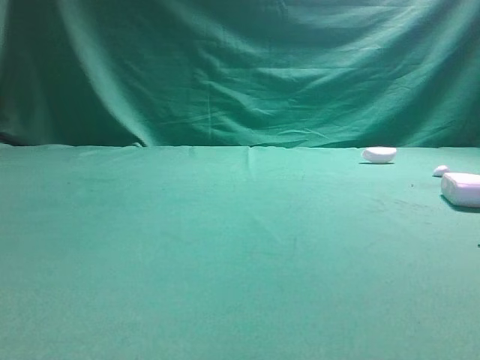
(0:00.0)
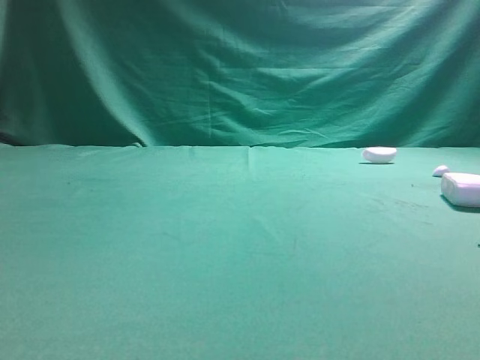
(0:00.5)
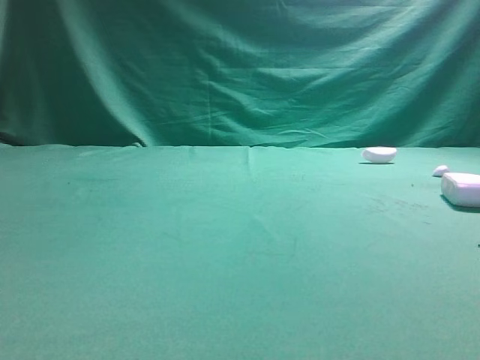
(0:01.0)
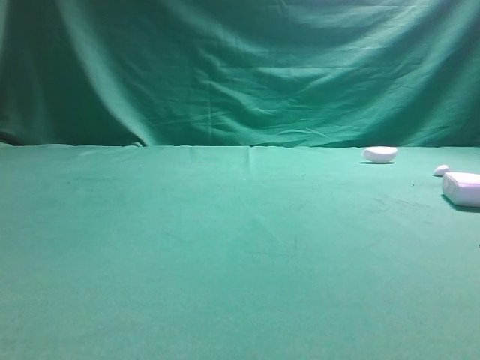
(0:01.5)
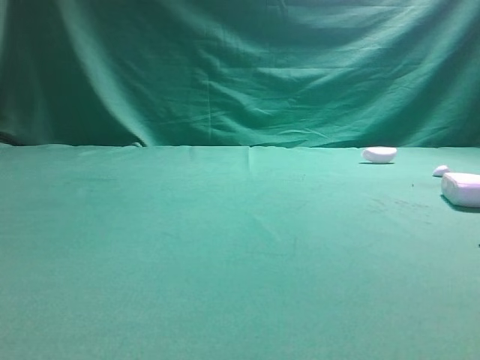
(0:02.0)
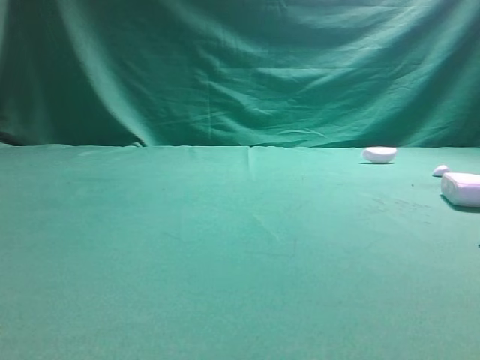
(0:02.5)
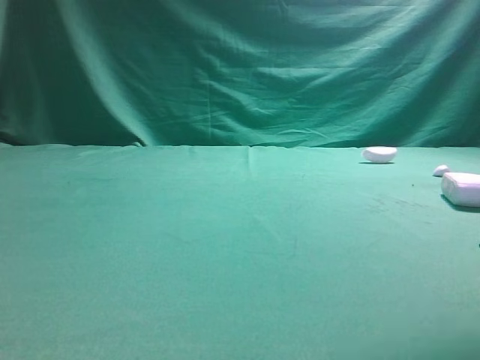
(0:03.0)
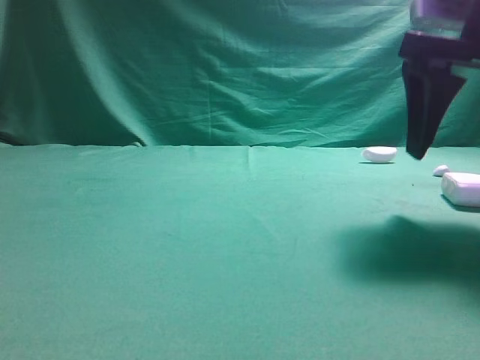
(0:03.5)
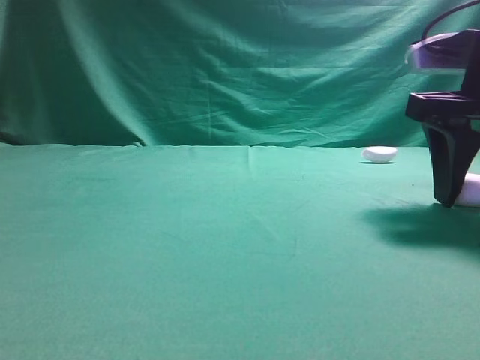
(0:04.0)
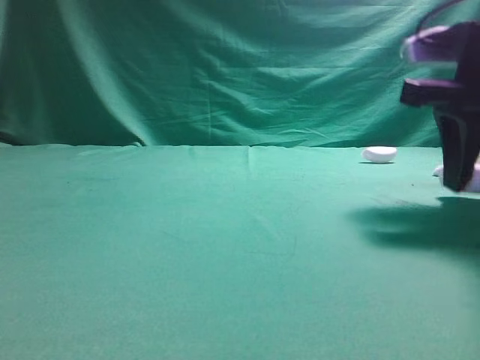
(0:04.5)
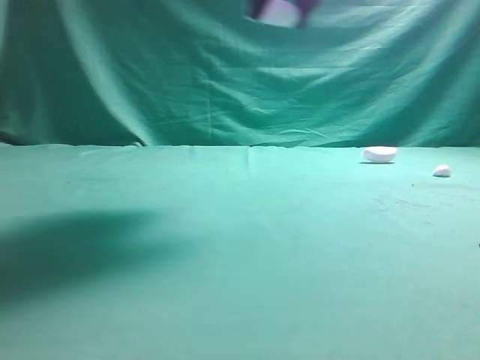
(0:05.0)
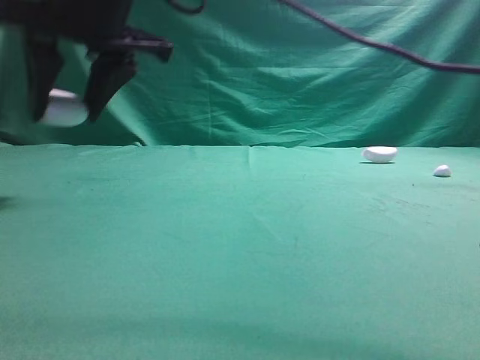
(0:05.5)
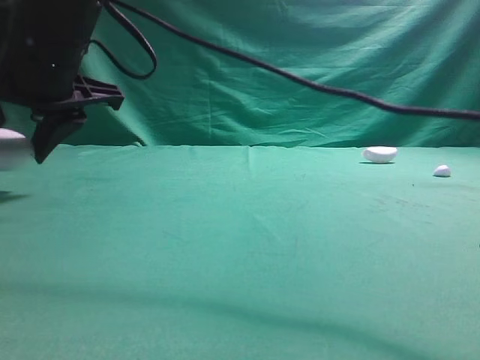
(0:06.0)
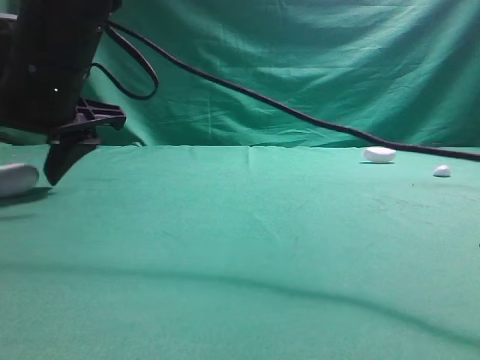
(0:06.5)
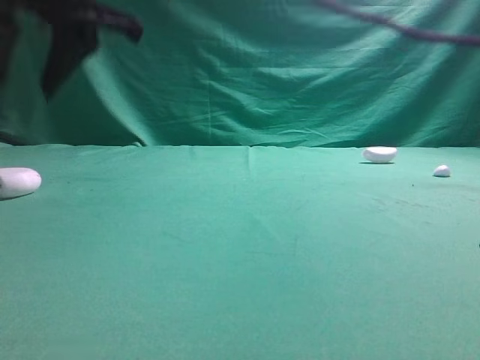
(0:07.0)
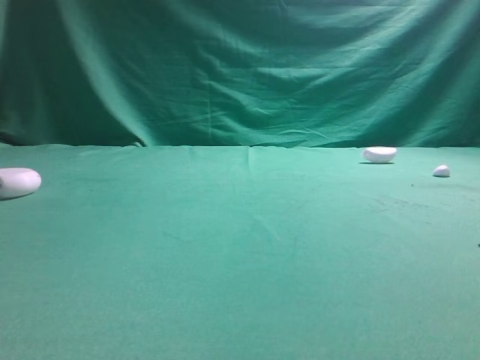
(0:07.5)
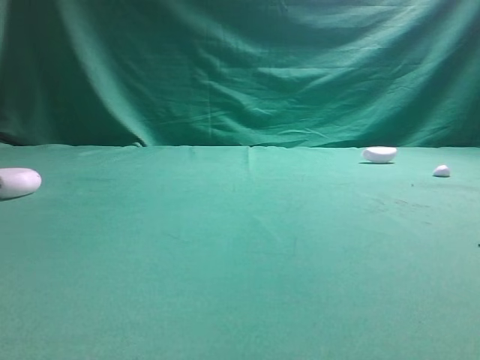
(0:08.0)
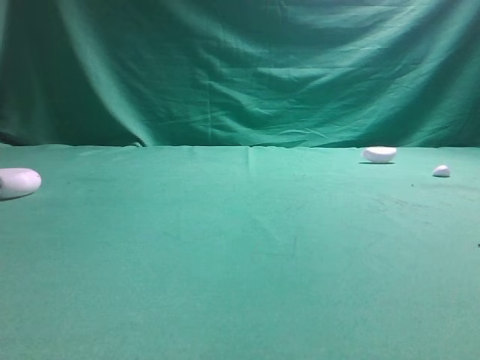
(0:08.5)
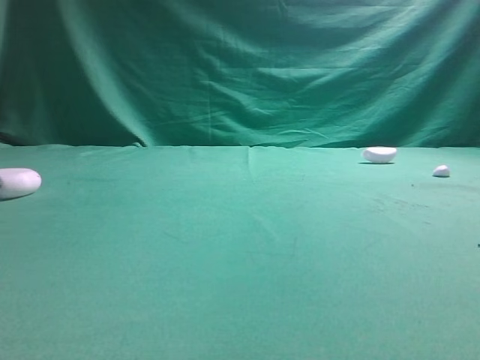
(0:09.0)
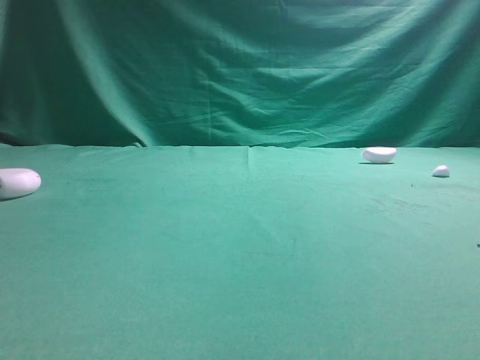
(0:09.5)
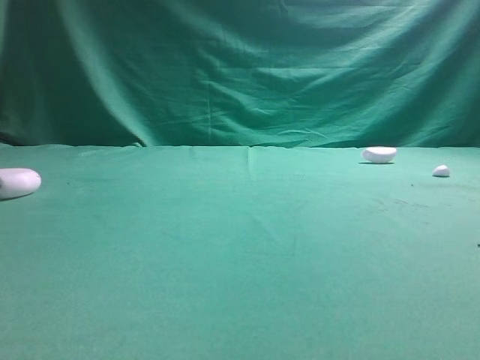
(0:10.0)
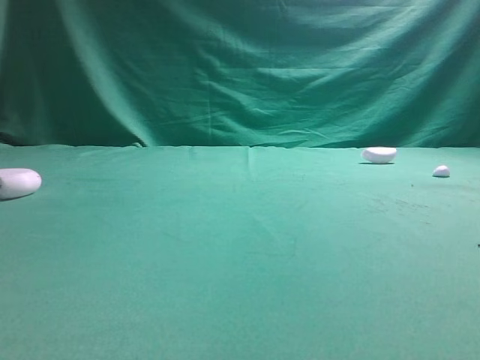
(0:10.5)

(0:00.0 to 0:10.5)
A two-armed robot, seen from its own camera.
Step, 0:00.0 - 0:04.5: Grasp the Bluetooth earphone case.
Step, 0:05.0 - 0:06.5: Place bluetooth earphone case on the left side of the table.

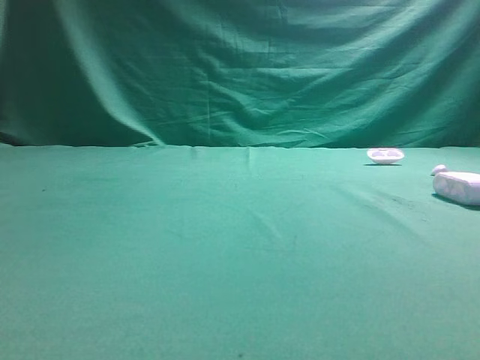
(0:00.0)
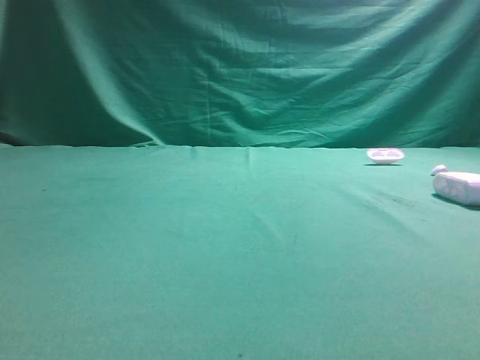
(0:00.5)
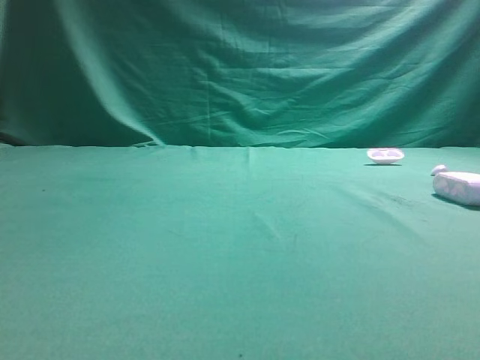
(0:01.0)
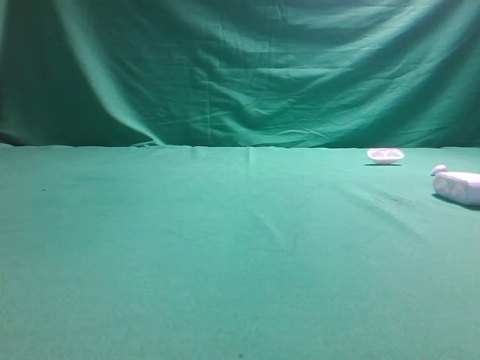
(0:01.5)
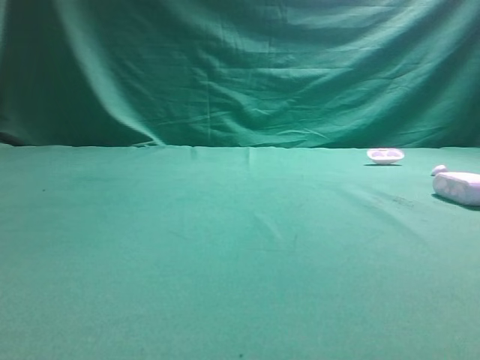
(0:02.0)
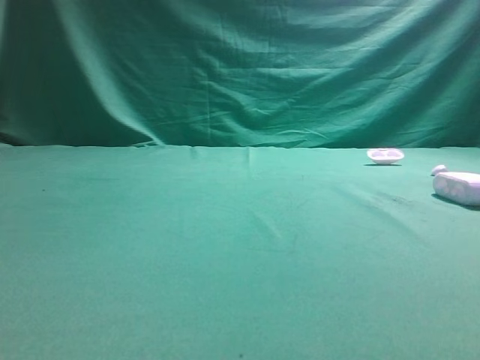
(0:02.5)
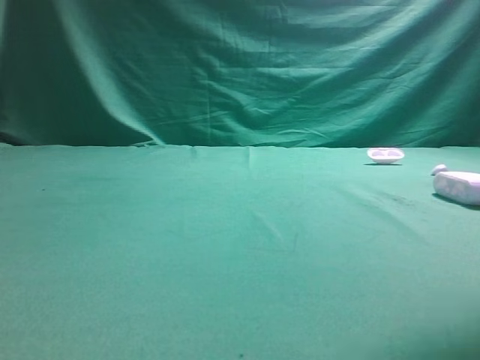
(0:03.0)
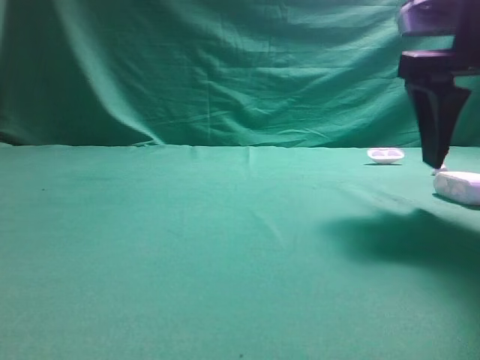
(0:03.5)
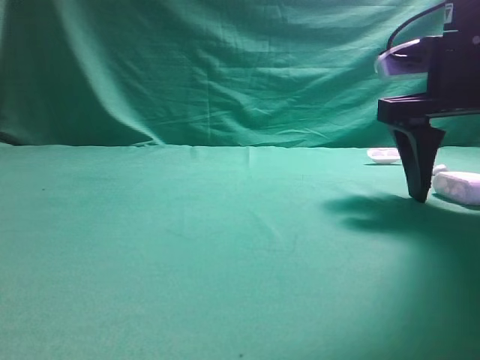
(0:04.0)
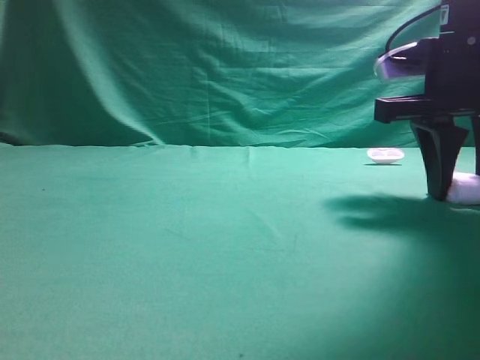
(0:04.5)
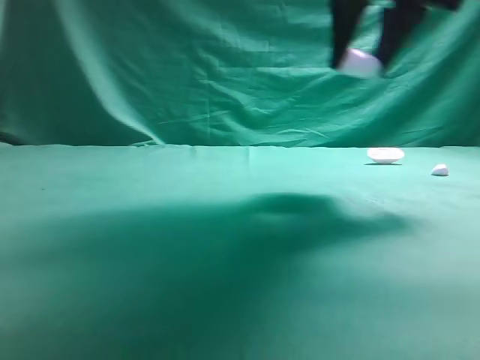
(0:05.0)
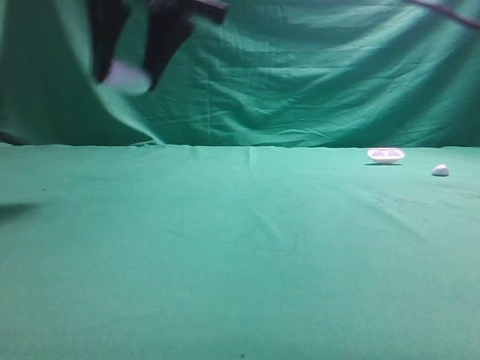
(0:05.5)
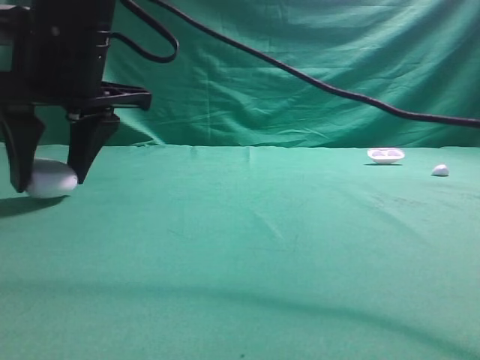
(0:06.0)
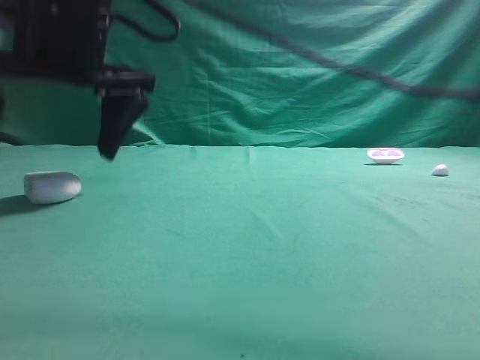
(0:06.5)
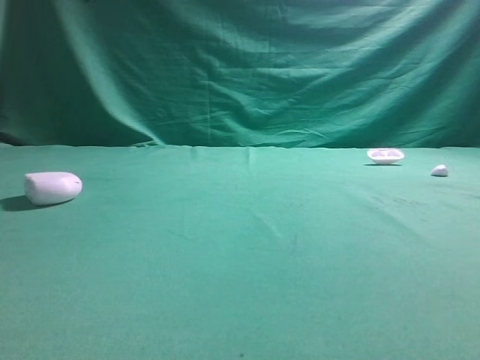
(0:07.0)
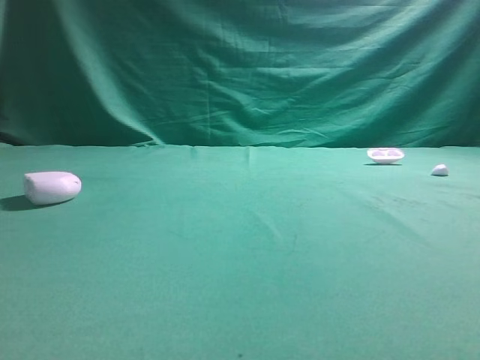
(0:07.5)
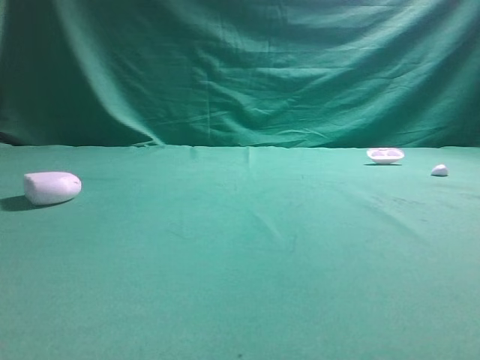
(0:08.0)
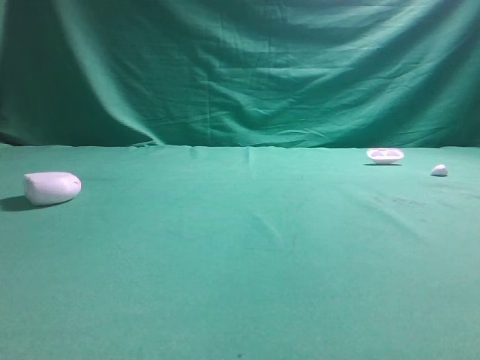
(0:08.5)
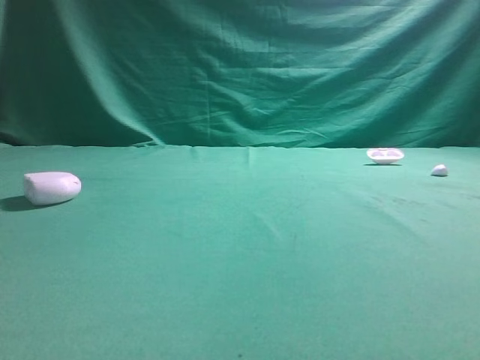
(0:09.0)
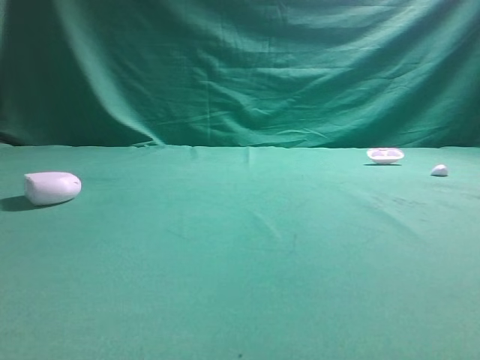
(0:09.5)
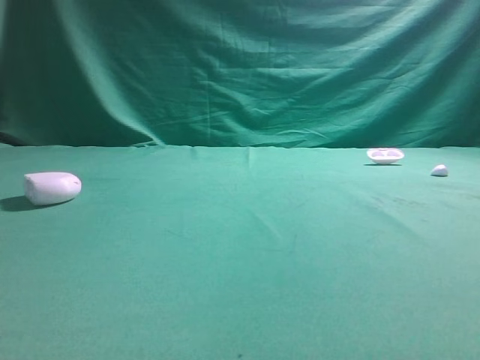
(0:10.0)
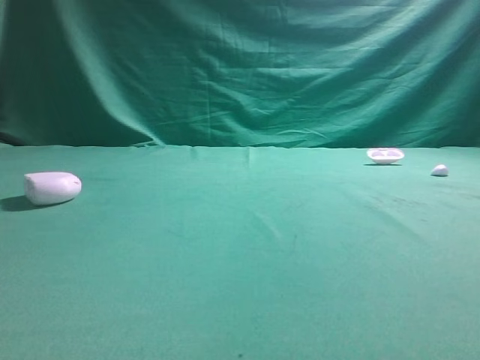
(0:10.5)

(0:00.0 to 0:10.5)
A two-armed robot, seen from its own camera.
Step, 0:00.0 - 0:04.5: Grasp the Bluetooth earphone case.
Step, 0:05.0 - 0:06.5: Place bluetooth earphone case on the left side of the table.

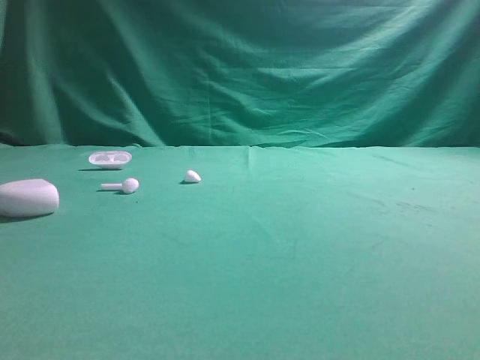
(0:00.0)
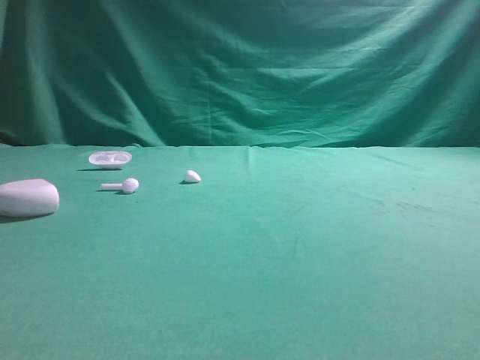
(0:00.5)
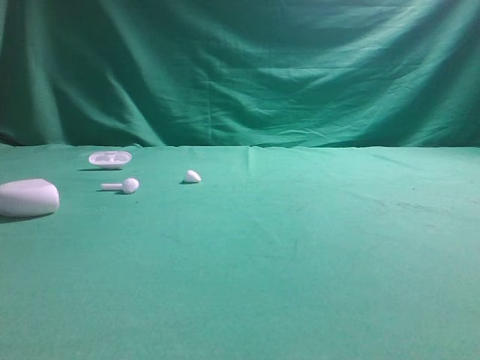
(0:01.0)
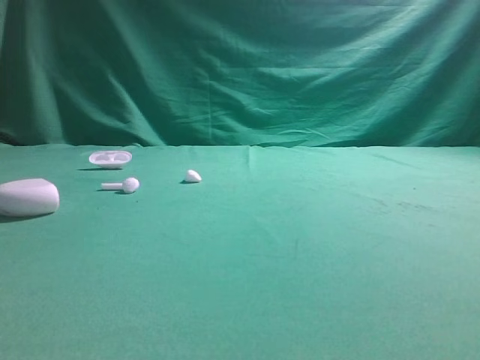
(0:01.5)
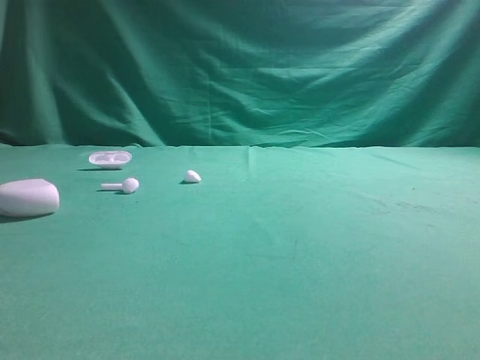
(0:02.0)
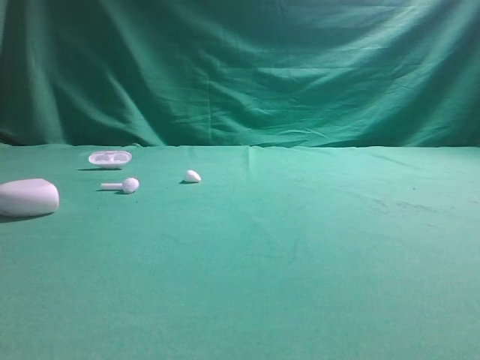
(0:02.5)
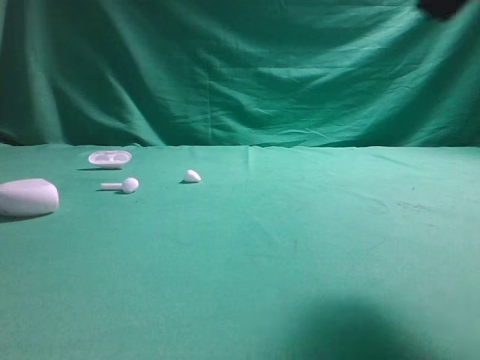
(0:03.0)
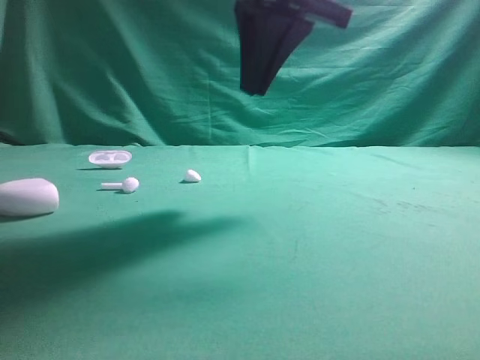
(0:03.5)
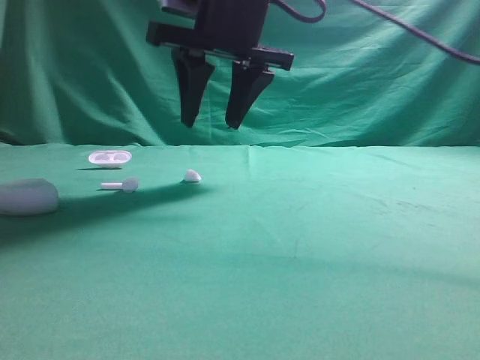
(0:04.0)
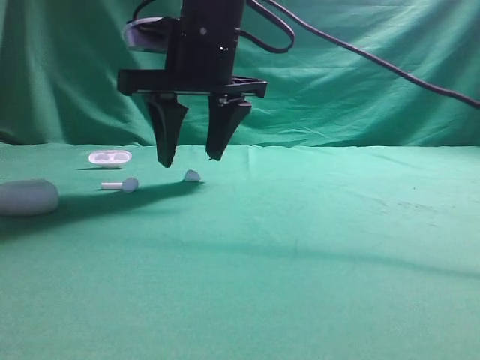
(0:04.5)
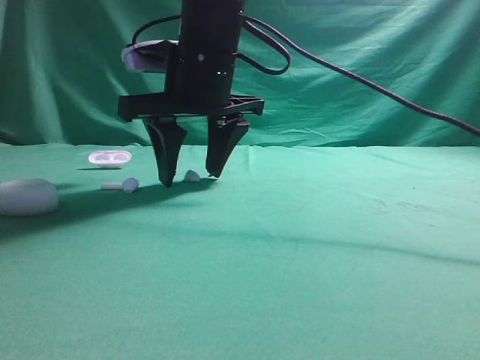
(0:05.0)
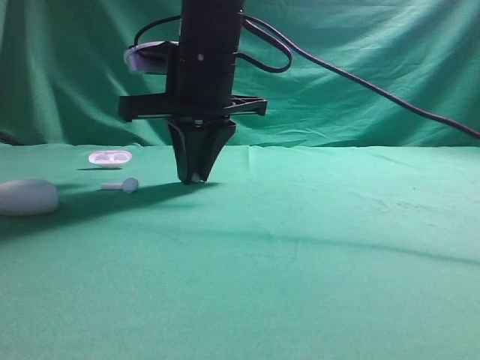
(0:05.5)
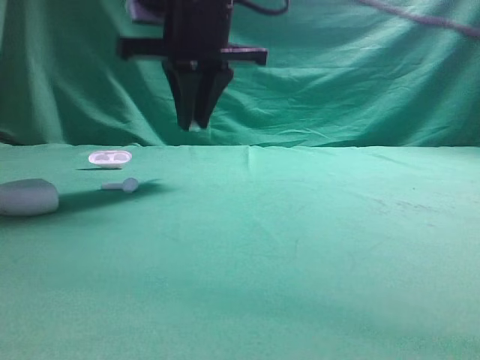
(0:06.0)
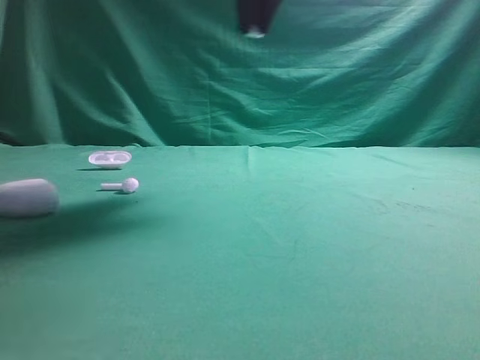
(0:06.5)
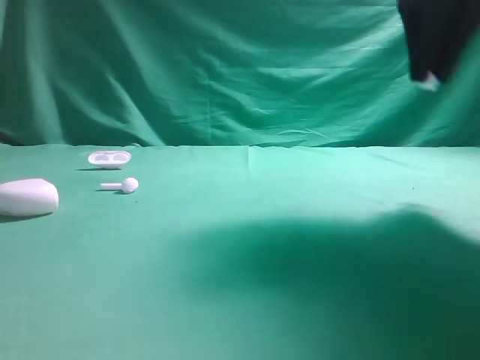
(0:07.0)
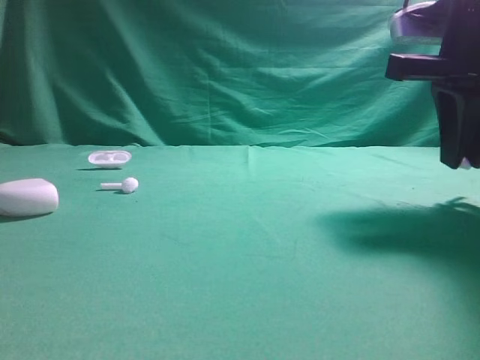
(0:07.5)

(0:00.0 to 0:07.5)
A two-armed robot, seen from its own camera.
Step, 0:00.0 - 0:06.0: Grasp the Bluetooth earbud.
